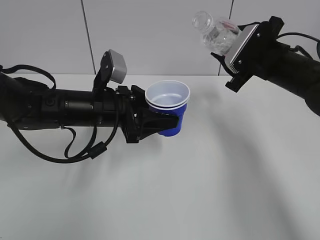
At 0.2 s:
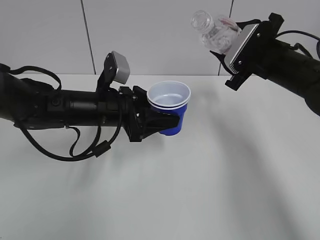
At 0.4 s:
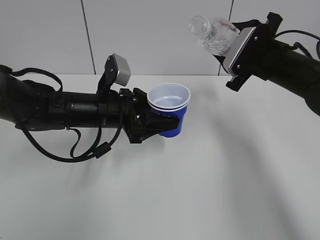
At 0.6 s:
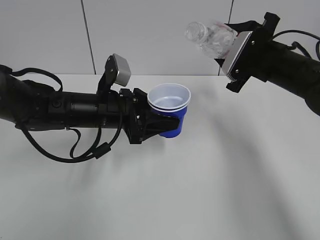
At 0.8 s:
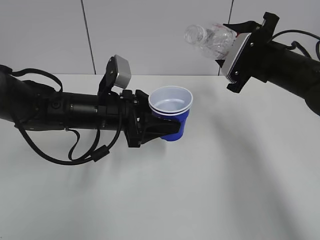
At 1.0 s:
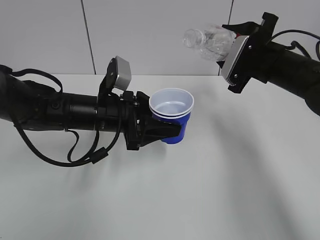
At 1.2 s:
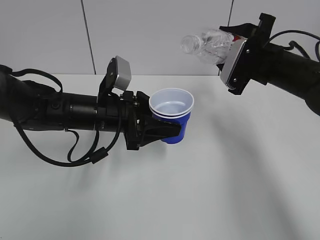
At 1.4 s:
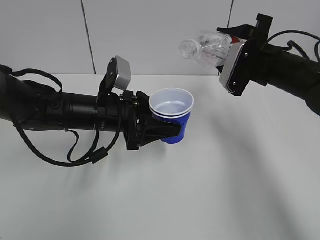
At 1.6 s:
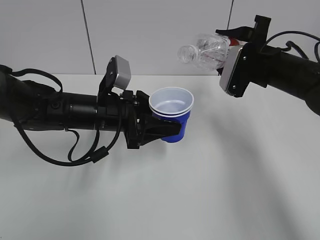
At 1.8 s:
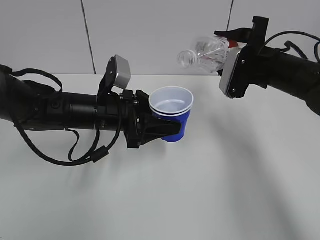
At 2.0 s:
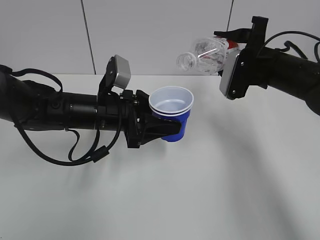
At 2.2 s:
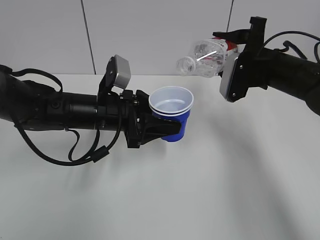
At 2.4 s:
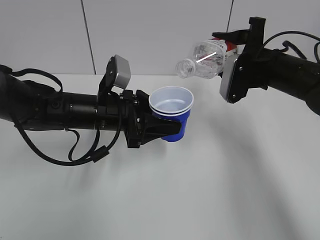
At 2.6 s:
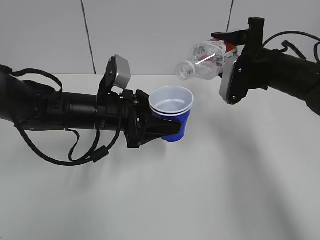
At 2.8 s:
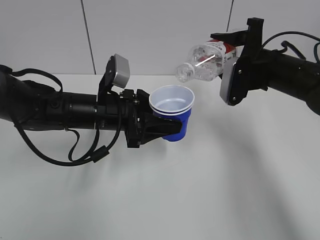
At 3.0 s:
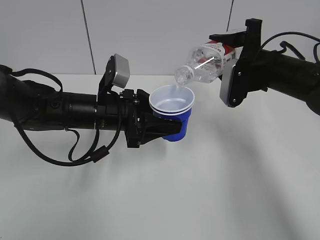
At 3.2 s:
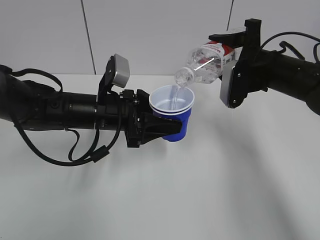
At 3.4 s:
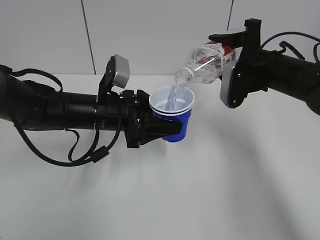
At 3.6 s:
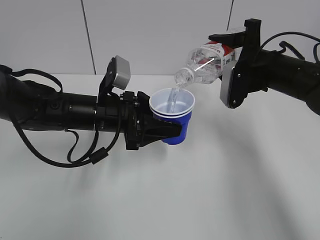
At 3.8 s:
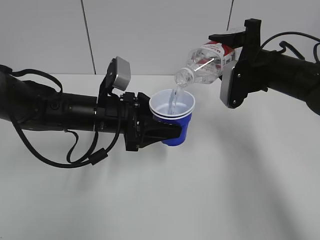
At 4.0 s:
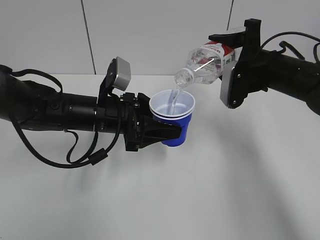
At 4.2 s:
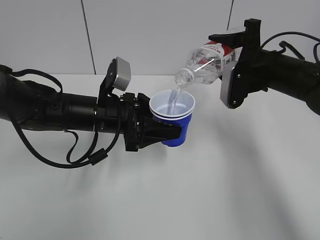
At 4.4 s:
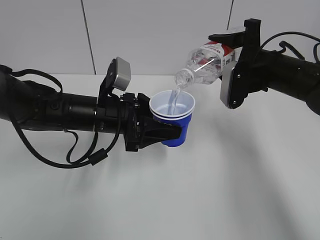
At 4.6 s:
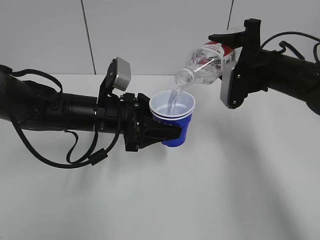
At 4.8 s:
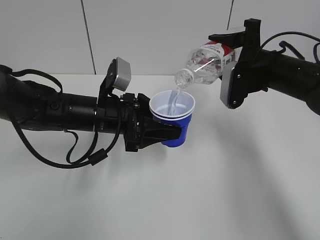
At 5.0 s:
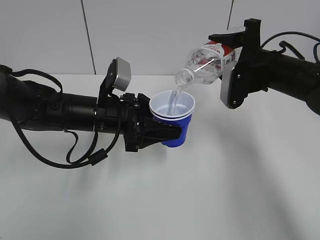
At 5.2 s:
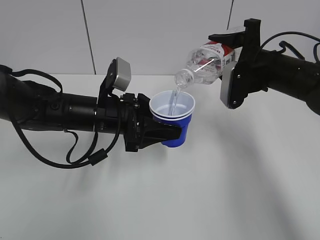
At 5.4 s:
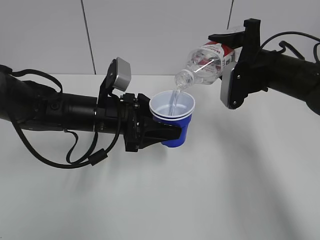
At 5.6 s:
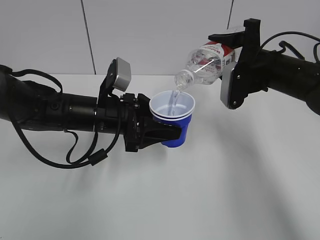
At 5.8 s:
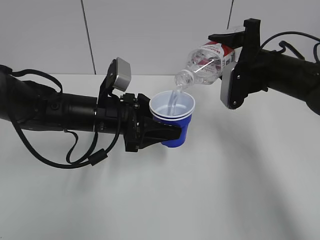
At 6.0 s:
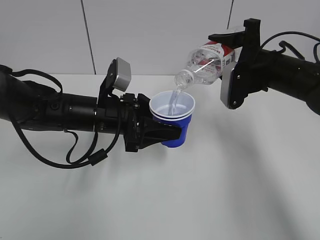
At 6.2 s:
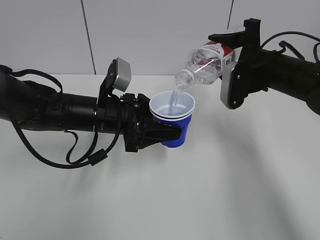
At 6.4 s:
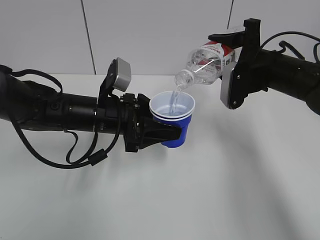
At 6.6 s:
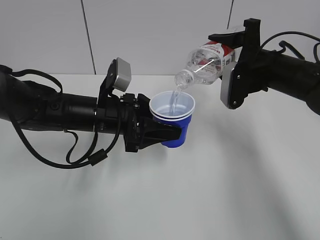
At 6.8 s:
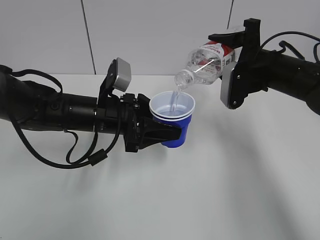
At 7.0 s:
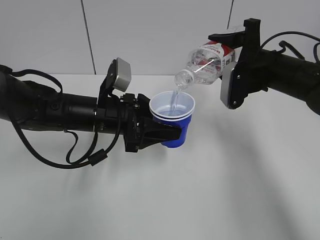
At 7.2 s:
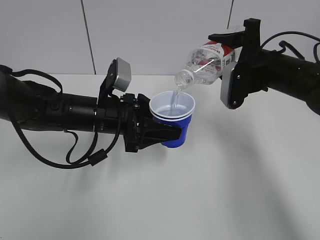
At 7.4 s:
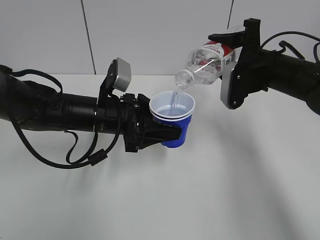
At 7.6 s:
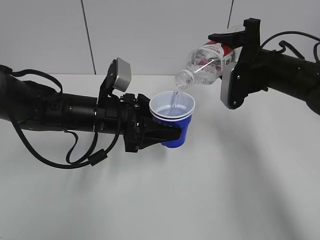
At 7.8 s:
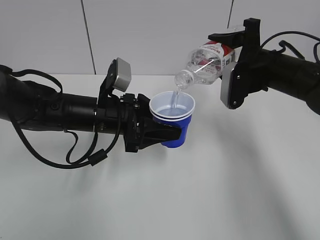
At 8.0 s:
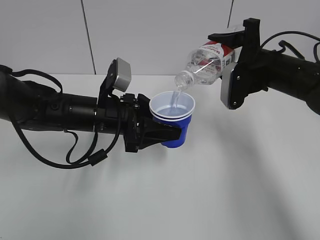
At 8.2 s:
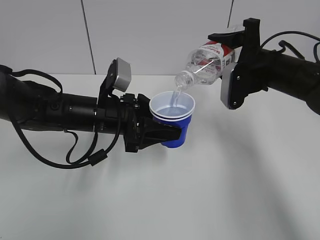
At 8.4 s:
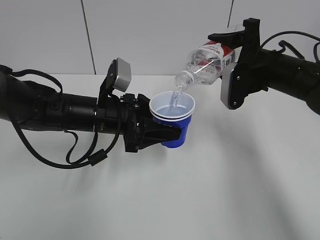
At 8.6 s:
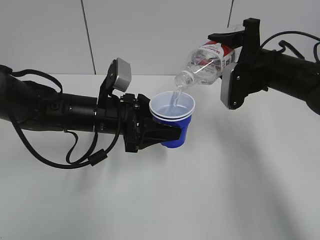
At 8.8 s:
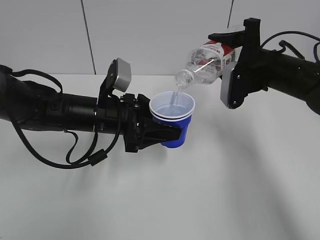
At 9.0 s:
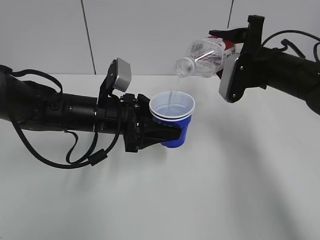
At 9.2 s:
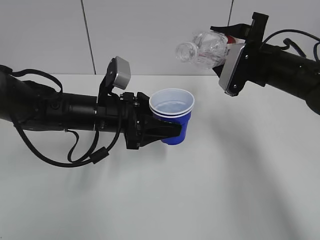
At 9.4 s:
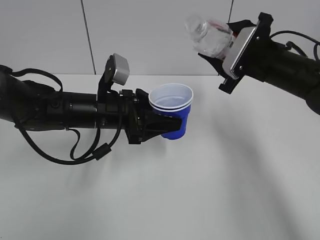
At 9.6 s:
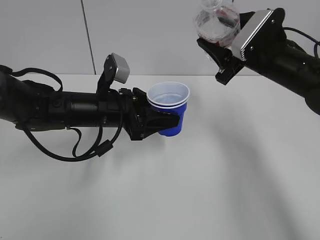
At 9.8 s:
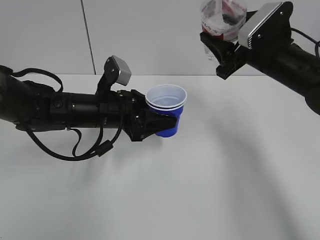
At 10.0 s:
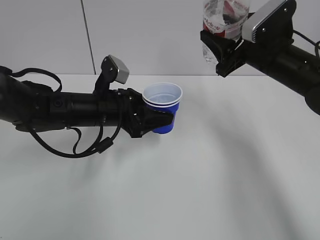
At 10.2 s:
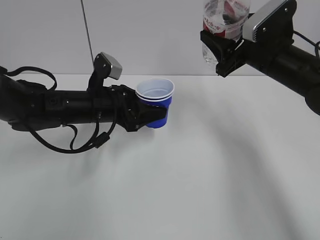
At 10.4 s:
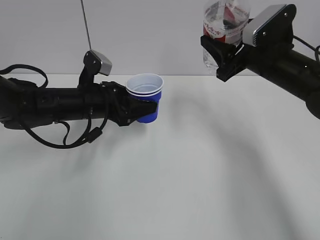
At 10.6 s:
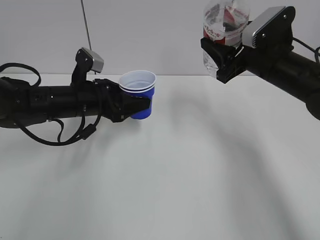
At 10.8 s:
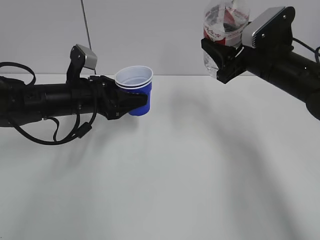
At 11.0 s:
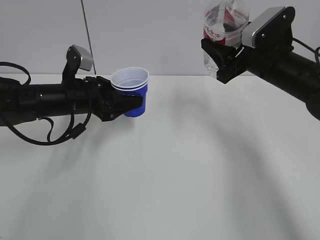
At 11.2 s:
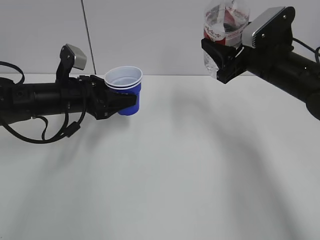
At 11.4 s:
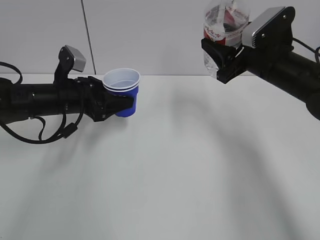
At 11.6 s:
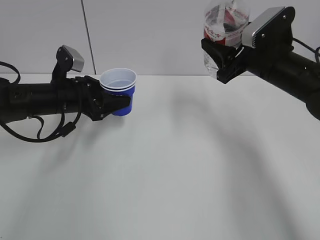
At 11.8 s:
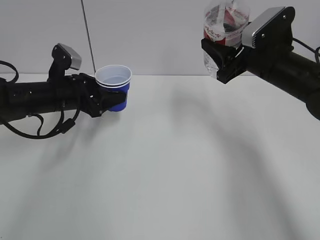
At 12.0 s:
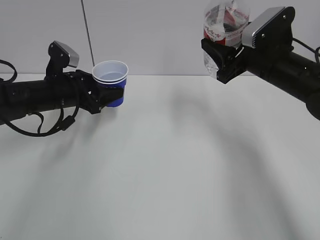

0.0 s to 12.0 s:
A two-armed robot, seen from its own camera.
Step, 0.0 to 9.2 s: Fill water with the left hand.
Step, 0.0 to 9.2 s: Pour water with the right hand.
Step, 9.4 to 11.2 s: Collect water with the right hand.
1.6 to 3.0 s: There are only small adjustments of the grippers.
3.0 to 7.6 s: Both grippers stay put.
7.6 to 9.0 s: The grippers make only small movements.
9.0 to 10.4 s: The left gripper moves approximately 5 cm.
10.4 to 12.0 s: The left gripper moves to the left, roughly 5 cm.

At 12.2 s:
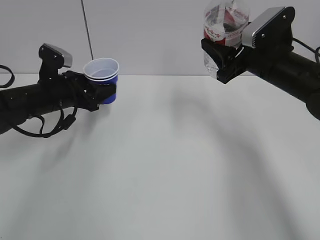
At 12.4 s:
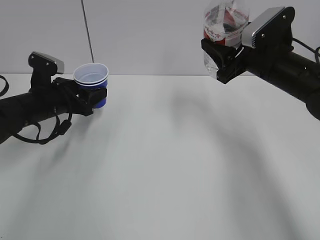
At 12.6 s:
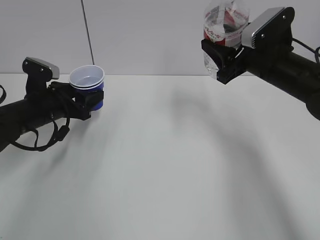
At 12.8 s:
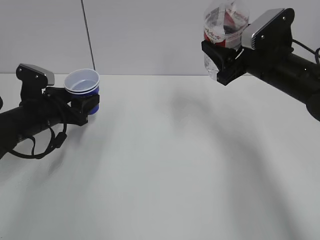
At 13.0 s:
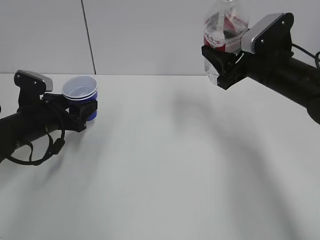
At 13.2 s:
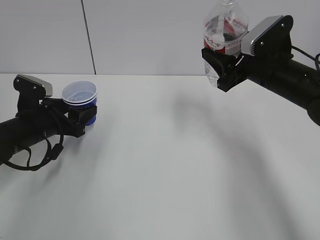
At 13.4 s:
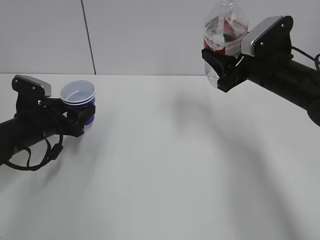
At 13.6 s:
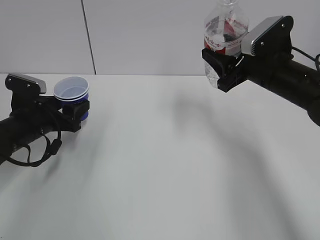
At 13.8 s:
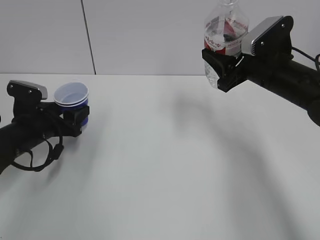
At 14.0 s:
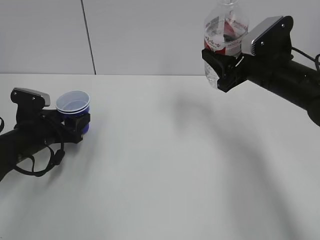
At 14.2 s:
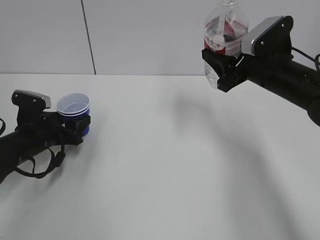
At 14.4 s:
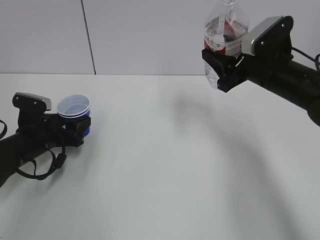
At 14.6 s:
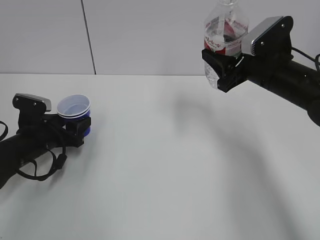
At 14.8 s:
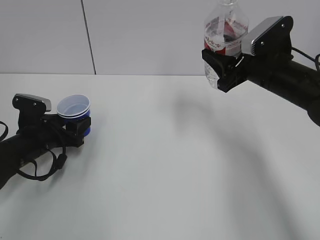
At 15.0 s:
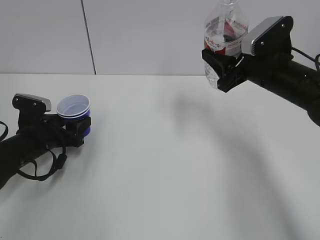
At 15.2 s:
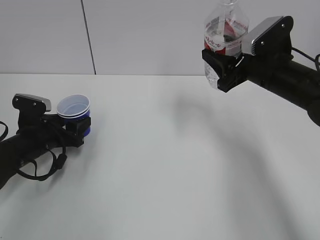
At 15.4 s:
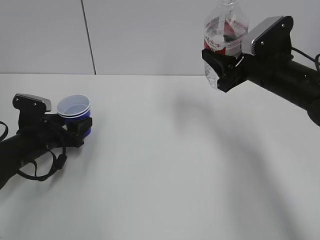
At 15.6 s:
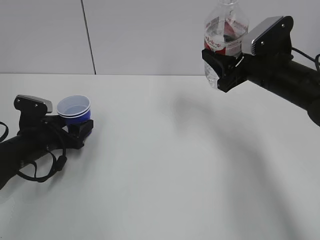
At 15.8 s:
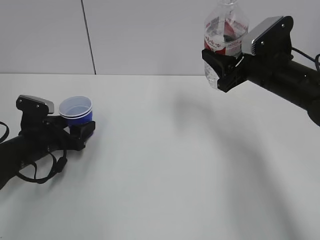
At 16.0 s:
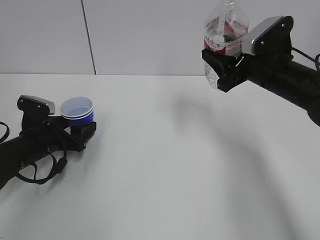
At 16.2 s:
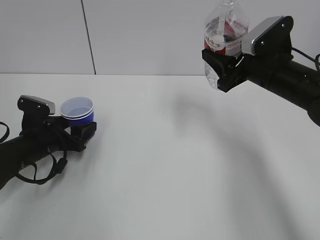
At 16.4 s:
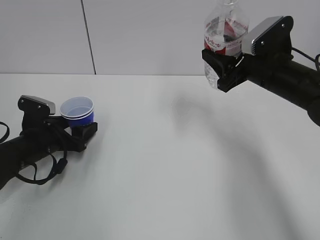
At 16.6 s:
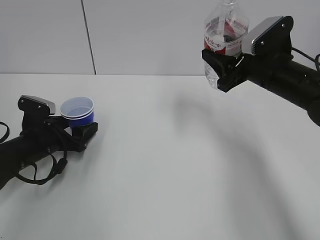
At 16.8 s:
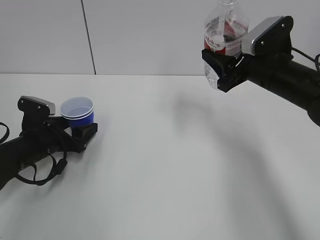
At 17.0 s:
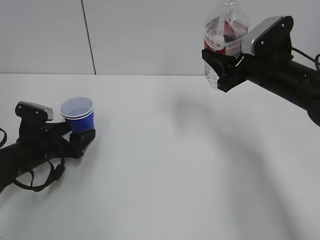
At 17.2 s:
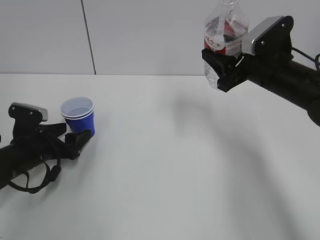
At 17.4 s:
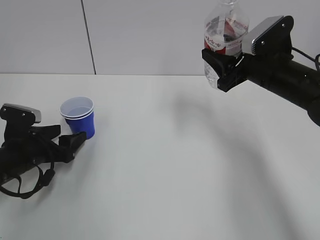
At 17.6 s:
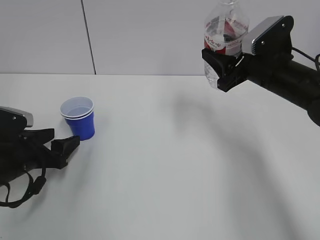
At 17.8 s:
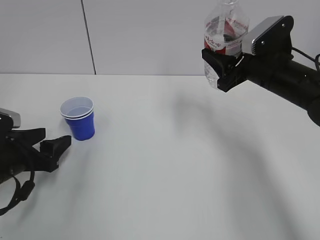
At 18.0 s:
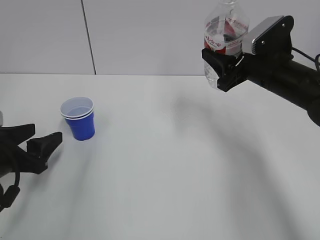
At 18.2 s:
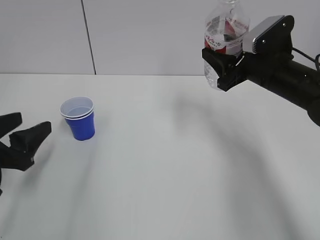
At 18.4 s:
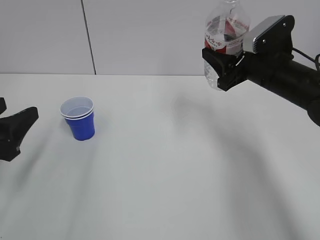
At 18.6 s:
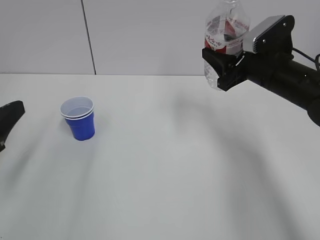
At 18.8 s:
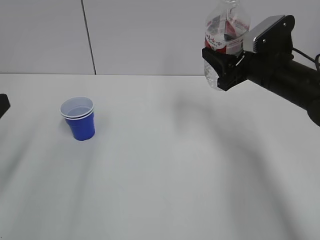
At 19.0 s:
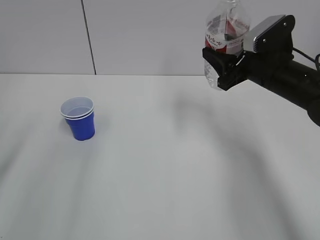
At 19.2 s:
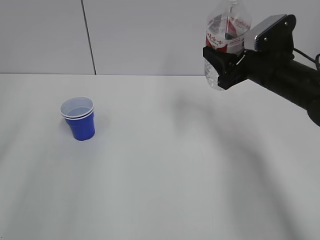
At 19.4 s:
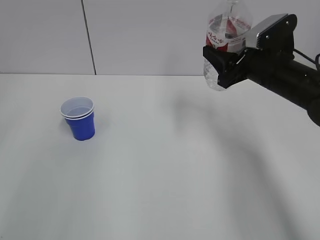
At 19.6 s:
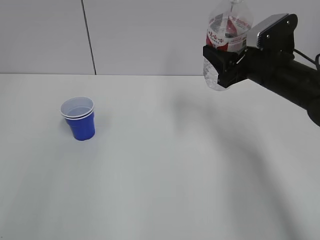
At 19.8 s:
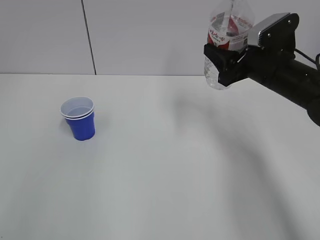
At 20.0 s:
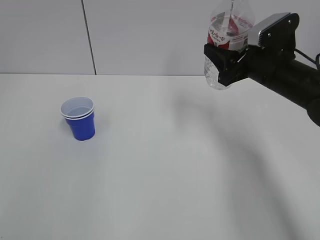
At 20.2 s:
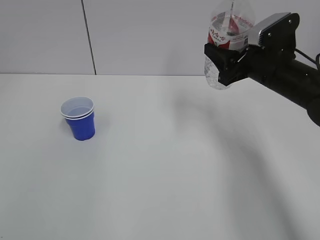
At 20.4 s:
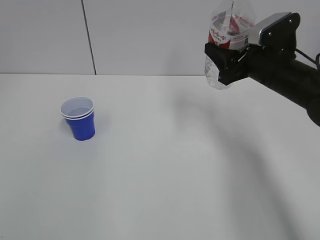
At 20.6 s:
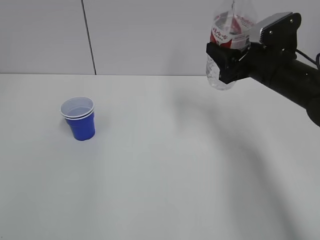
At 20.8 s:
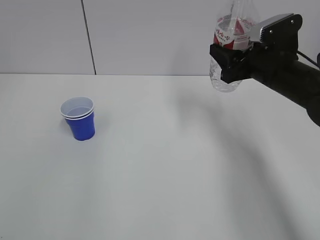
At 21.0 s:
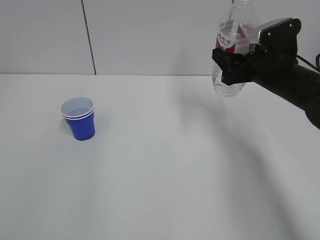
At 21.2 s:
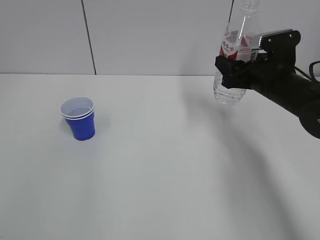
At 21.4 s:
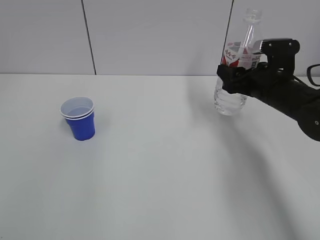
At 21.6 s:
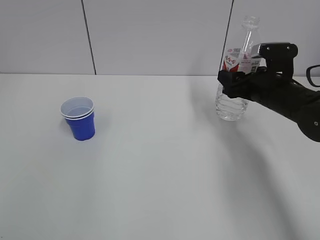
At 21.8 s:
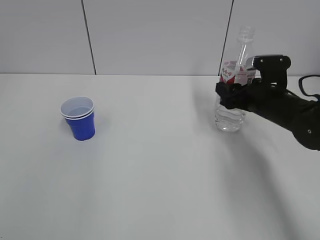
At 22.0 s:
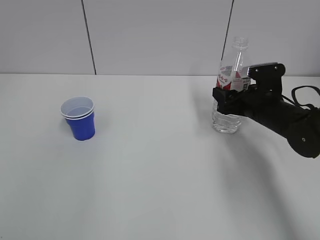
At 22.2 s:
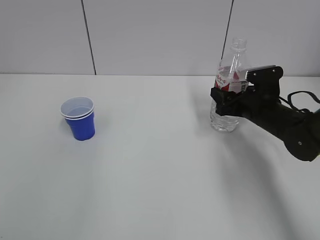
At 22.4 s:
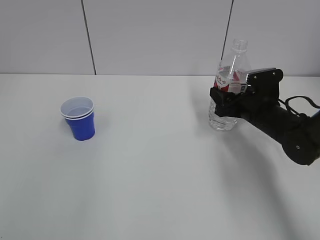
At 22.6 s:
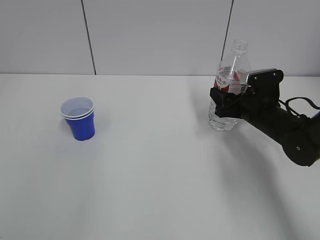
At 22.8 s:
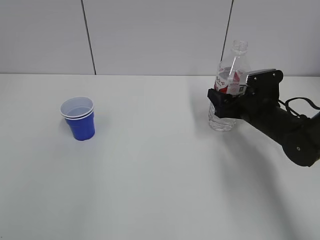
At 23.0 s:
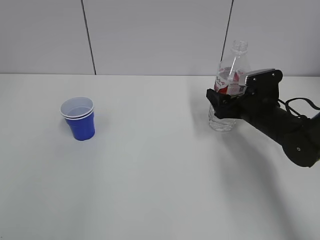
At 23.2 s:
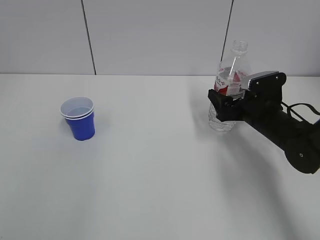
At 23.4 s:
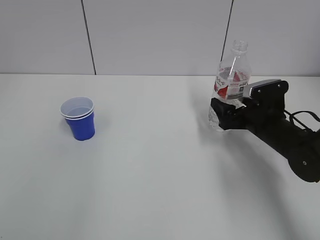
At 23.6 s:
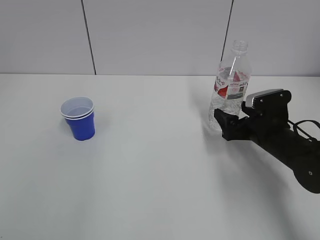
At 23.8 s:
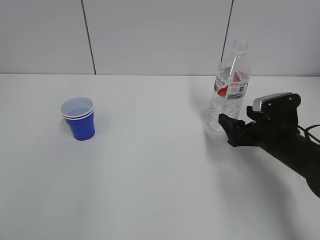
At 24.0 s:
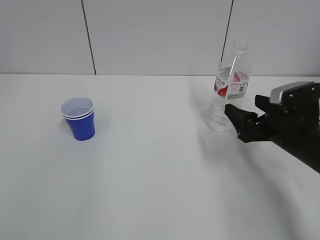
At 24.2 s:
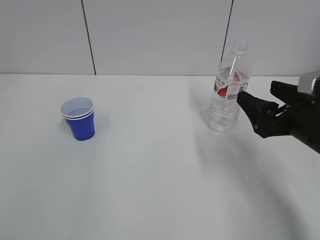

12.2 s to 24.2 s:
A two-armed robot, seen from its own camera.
Step, 12.2 to 14.2 s: Place the paper cup with the left hand.
12.2 to 13.8 s: The left gripper shifts by roughly 10 cm.
13.8 to 15.2 s: The grippers stay close to where they were, moving slightly.
15.2 to 16.6 s: The left gripper opens up.
16.6 to 18.2 s: The left gripper goes approximately 15 cm backward and upward.
18.2 to 19.8 s: The left gripper heads upward and backward, covering roughly 20 cm.
19.8 to 21.2 s: The left gripper changes place by about 5 cm.
21.2 to 22.6 s: The right gripper heads downward, covering approximately 10 cm.
22.6 to 24.2 s: The right gripper is displaced backward and upward by some 15 cm, and opens.
